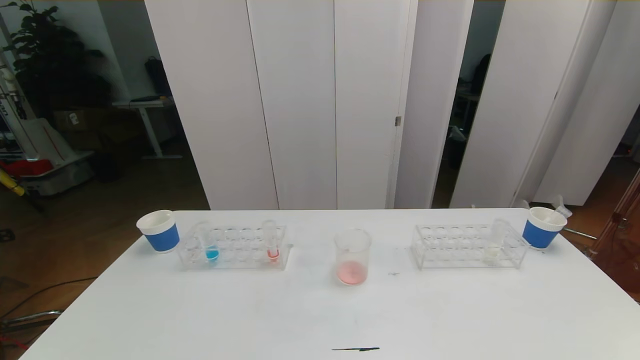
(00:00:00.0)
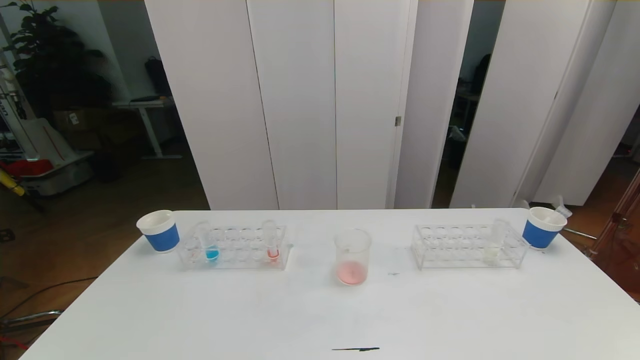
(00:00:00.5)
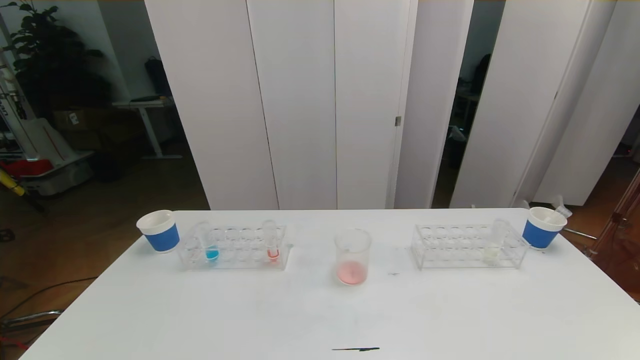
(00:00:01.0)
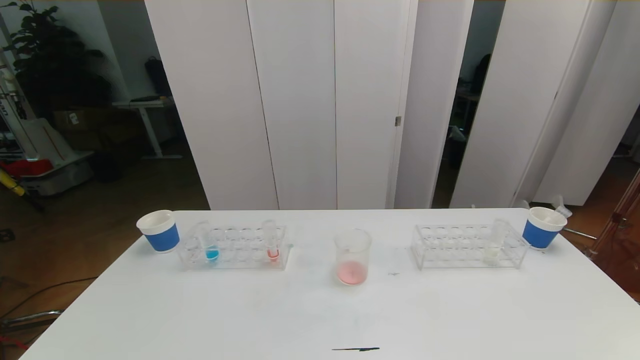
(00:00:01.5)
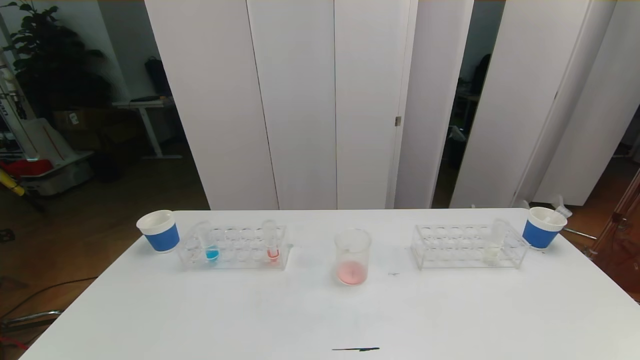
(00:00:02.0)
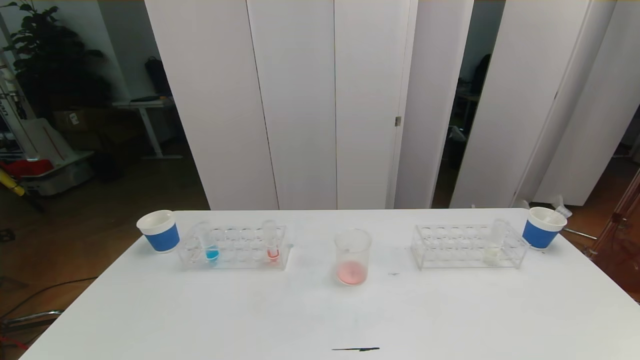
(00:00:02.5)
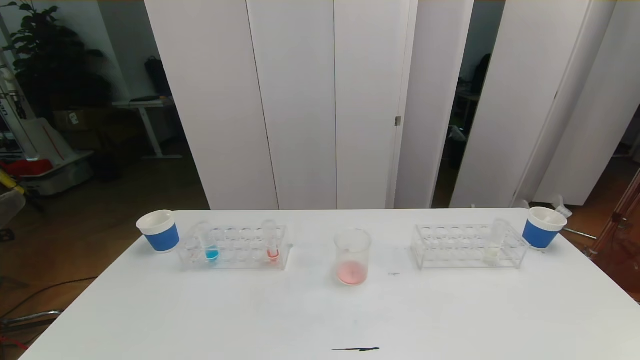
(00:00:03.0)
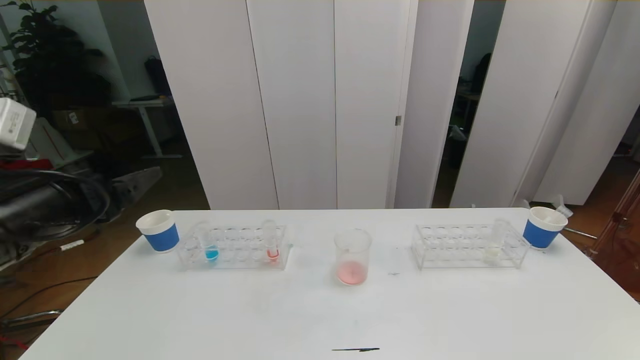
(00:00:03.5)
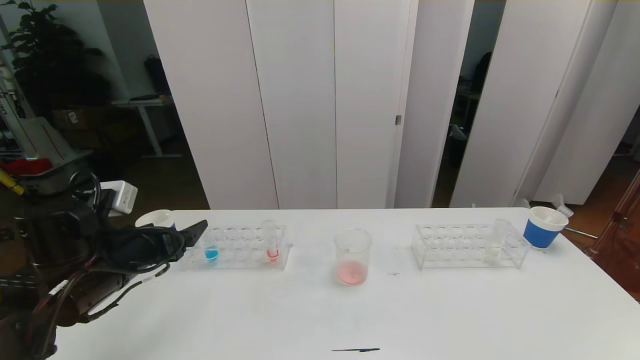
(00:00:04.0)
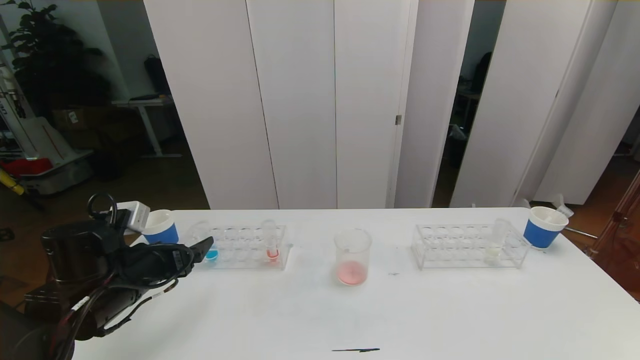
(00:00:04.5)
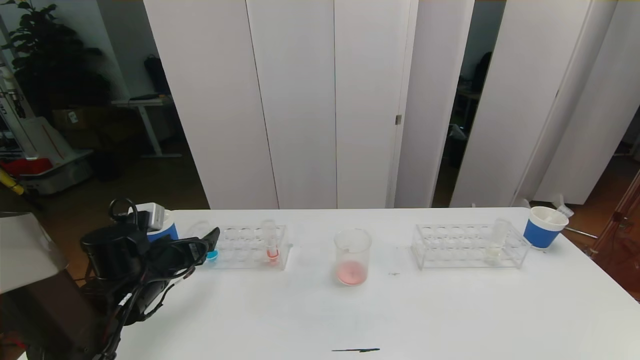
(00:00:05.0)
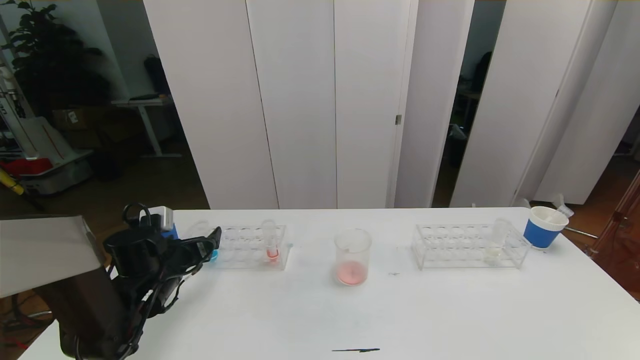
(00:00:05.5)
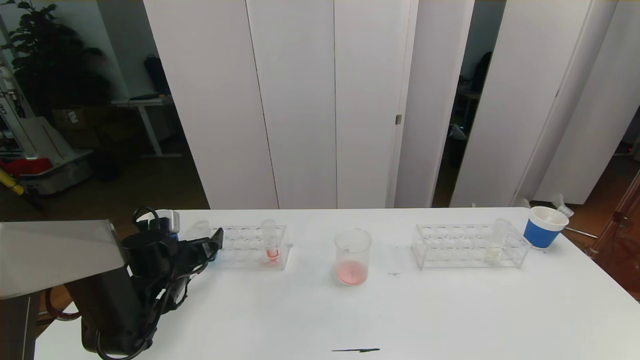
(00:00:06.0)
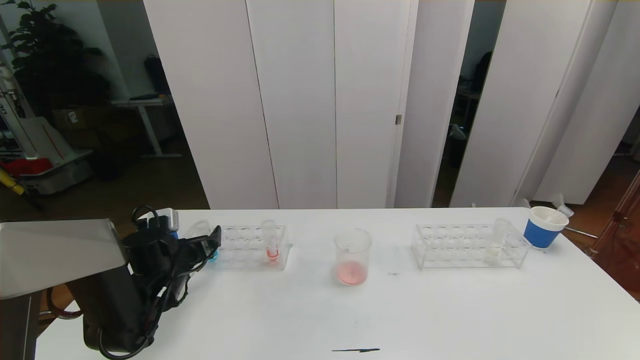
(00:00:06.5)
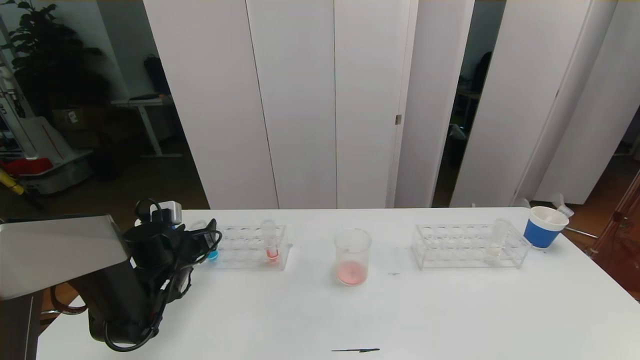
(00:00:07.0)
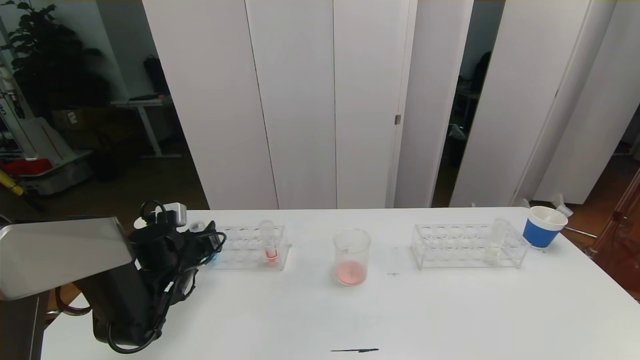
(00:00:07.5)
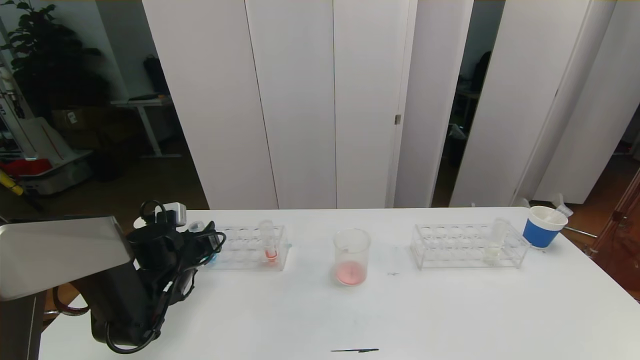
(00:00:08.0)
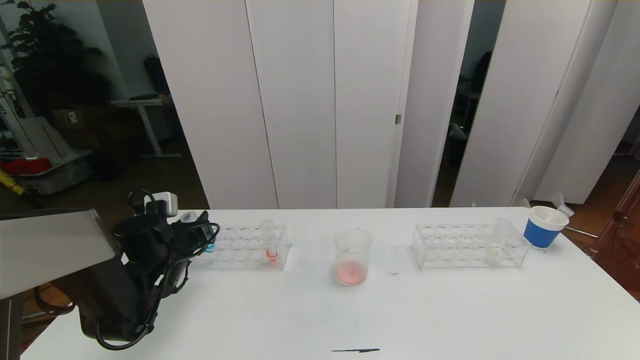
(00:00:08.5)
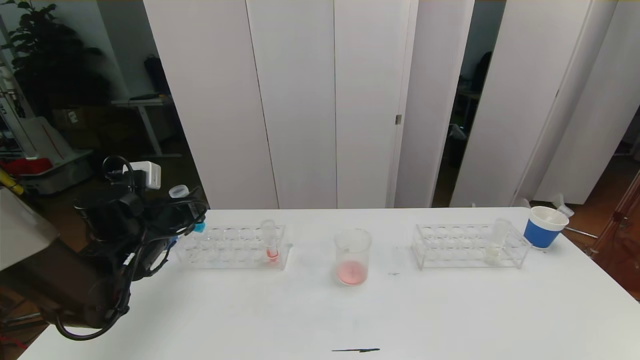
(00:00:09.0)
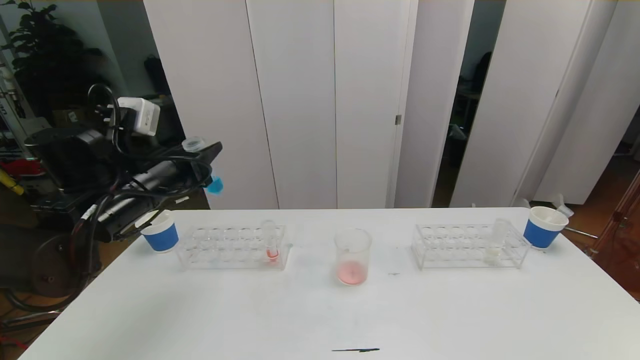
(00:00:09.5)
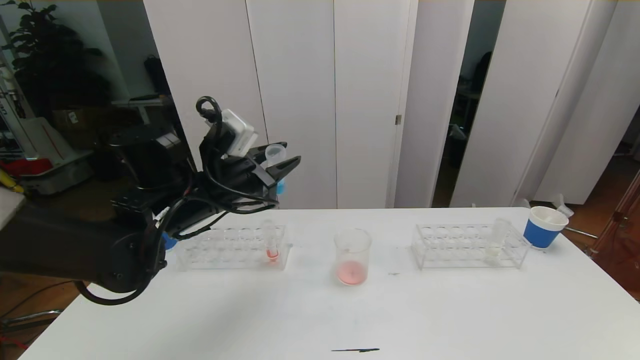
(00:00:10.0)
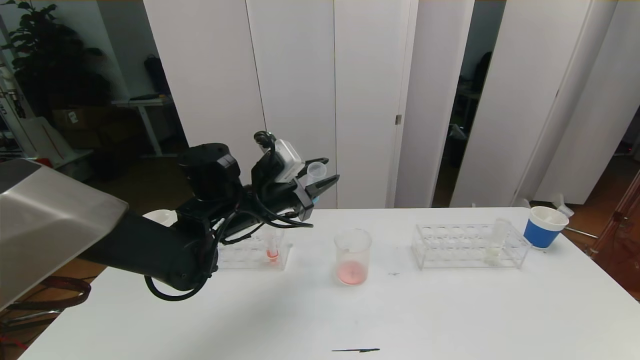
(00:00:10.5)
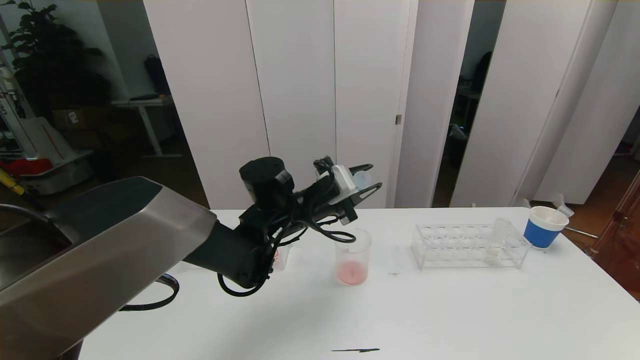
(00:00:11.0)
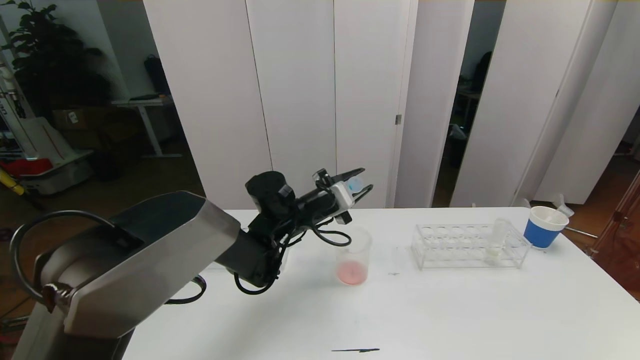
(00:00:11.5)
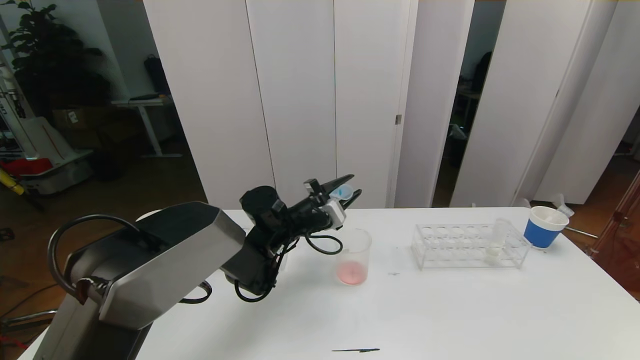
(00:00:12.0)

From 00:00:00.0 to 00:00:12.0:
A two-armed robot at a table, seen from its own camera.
Task of the whole recording: pick up the test tube with red pigment the test tube with blue pigment and the test tube with white pigment by grippers and pour them into the beaker.
From 00:00:02.0 to 00:00:04.0: The left gripper goes roughly 30 cm forward.
From 00:00:04.0 to 00:00:06.0: The left gripper shifts about 15 cm downward and forward.
From 00:00:06.0 to 00:00:08.0: The left gripper closes up.
From 00:00:08.0 to 00:00:10.0: The left gripper shifts some 20 cm upward and to the right.
From 00:00:10.0 to 00:00:12.0: The left gripper goes approximately 15 cm downward, to the right and forward.

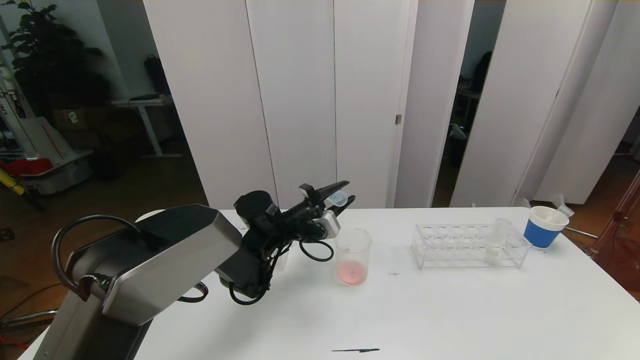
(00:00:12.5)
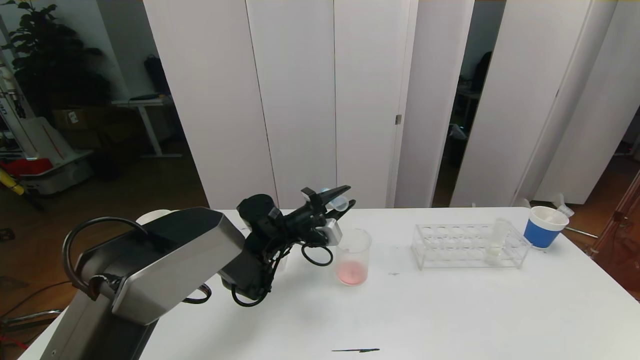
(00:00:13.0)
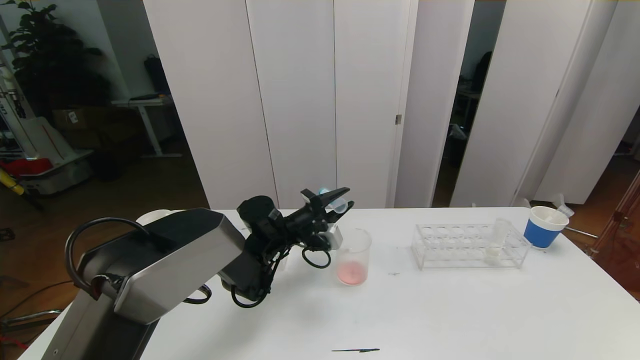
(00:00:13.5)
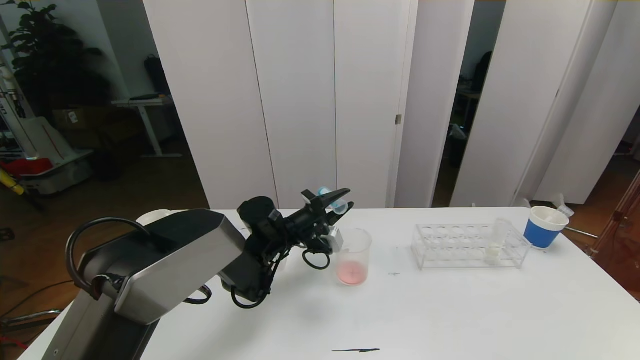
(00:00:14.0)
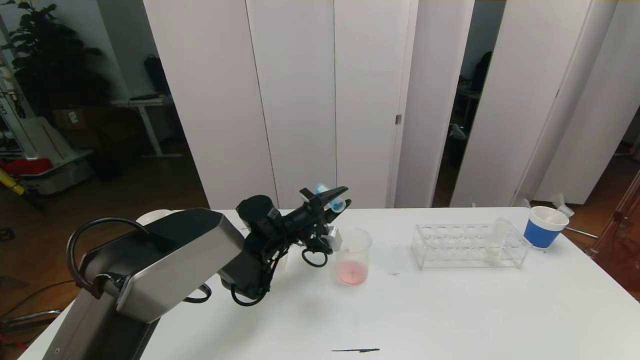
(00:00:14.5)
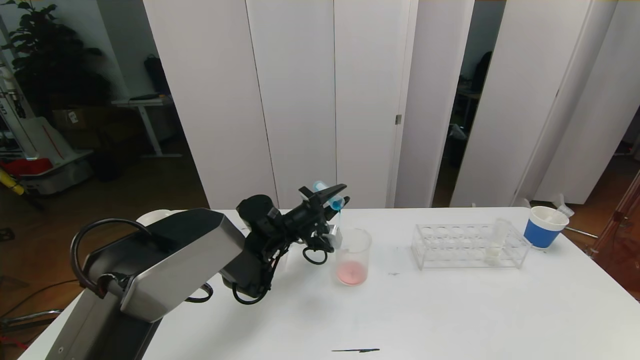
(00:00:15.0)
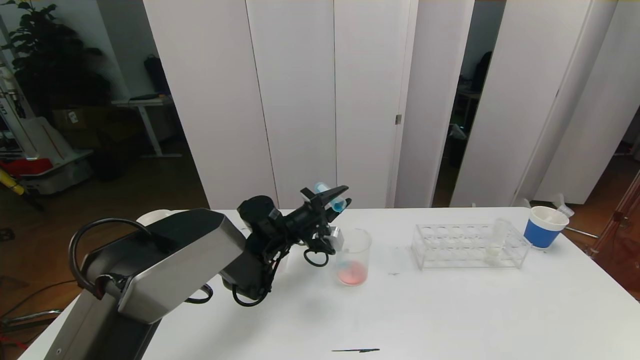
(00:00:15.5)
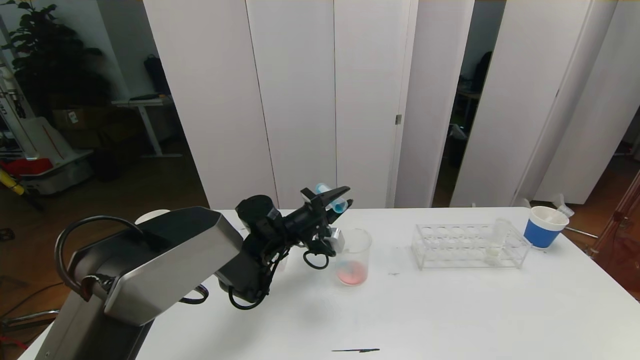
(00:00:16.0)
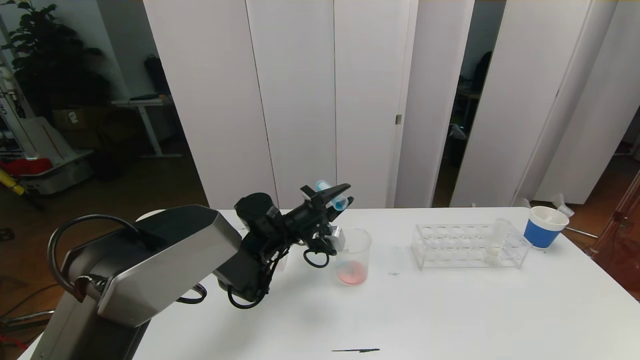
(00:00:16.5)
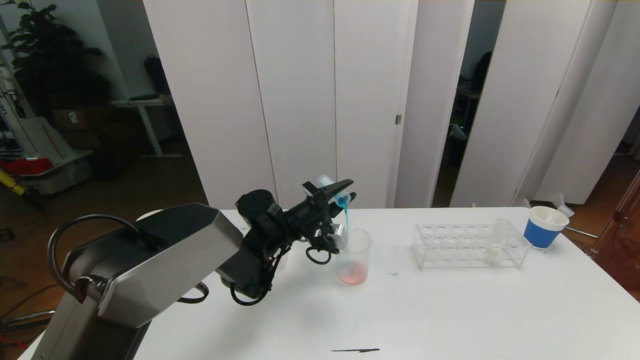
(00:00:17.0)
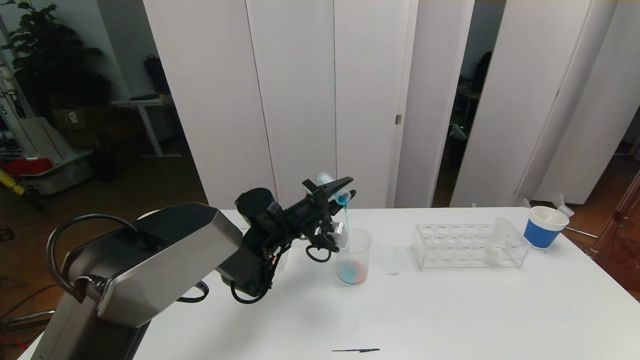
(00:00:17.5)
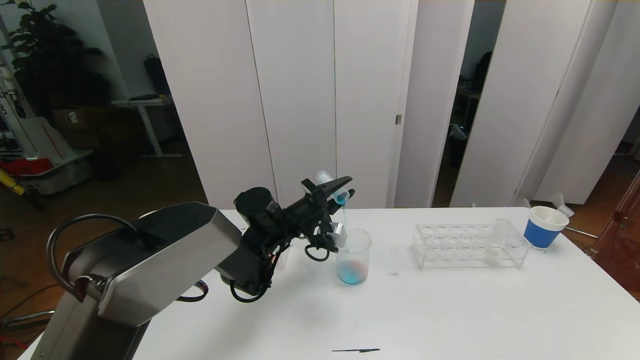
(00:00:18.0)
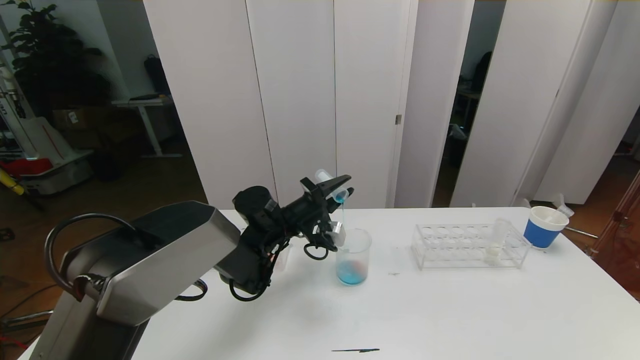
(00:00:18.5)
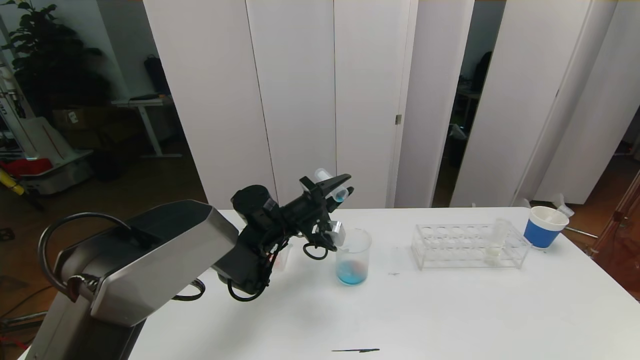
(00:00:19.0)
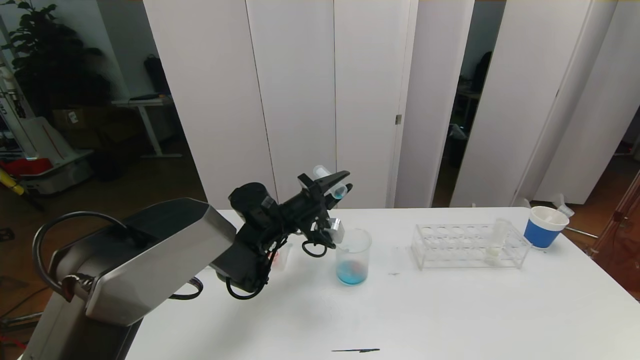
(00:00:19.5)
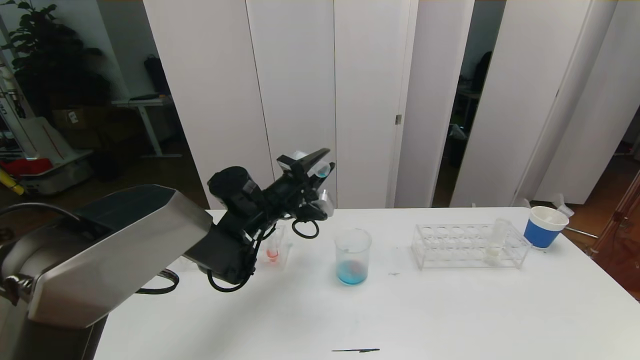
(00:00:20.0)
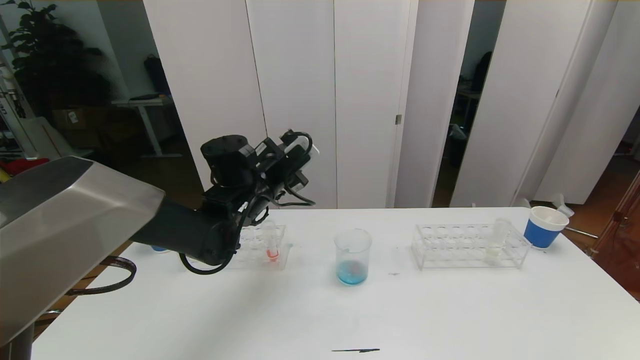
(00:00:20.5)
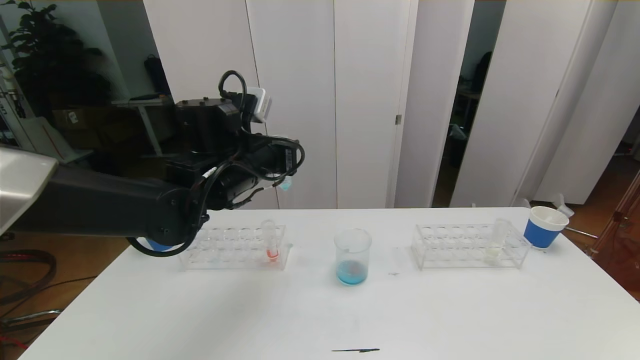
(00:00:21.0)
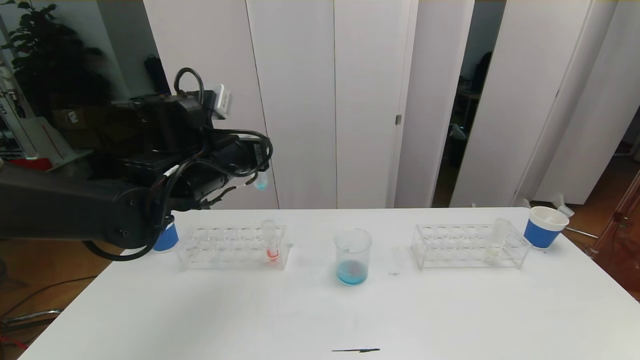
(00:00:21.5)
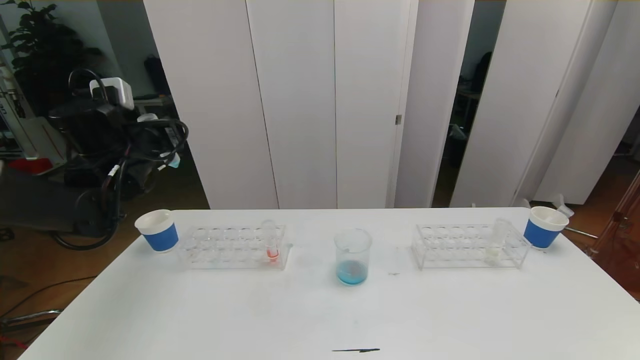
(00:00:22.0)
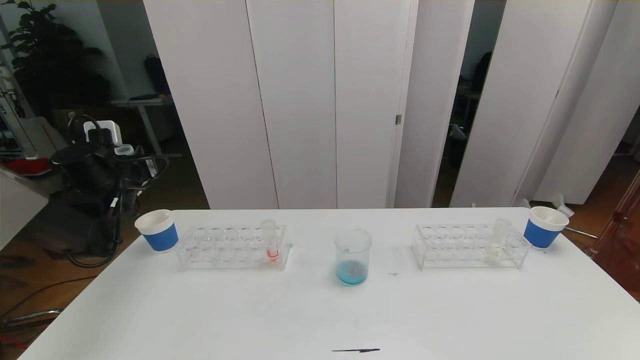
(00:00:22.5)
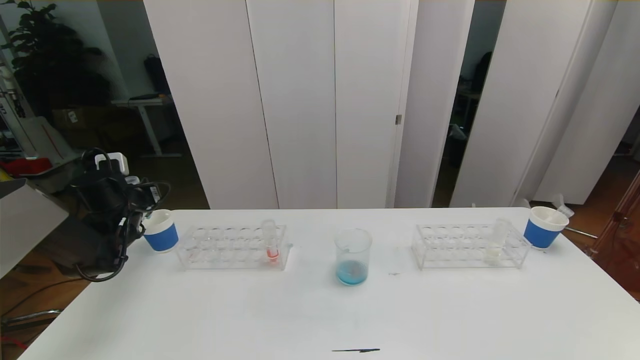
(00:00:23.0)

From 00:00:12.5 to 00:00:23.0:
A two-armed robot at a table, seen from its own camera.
Task of the whole recording: pick up the test tube with red pigment the test tube with blue pigment and the test tube with white pigment by grippers and pour them into the beaker.
From 00:00:12.5 to 00:00:16.5: The grippers make only small movements.
From 00:00:16.5 to 00:00:19.0: The grippers move only a little.
From 00:00:19.0 to 00:00:21.0: The left gripper travels upward and backward by roughly 15 cm.
From 00:00:21.0 to 00:00:23.0: The left gripper travels to the left and downward by roughly 30 cm.
